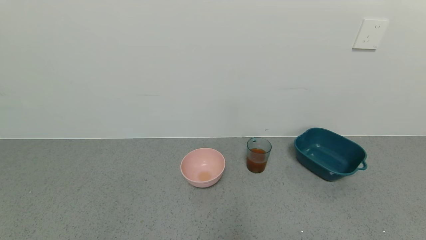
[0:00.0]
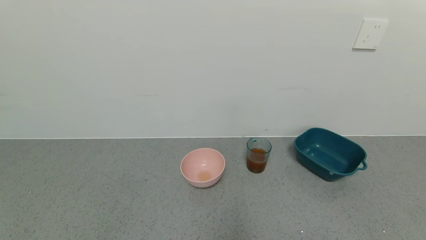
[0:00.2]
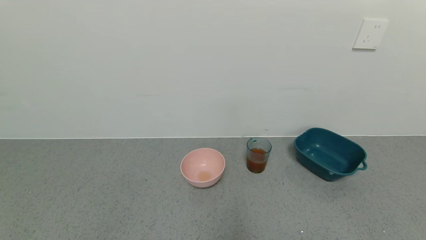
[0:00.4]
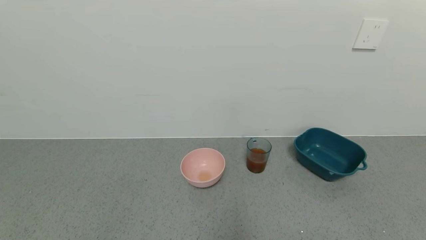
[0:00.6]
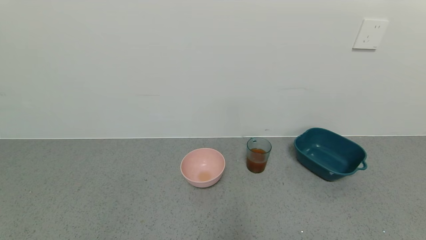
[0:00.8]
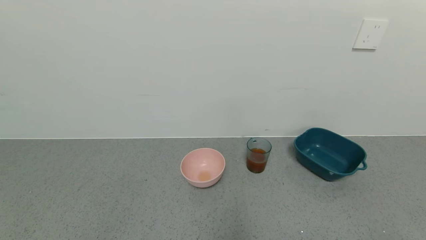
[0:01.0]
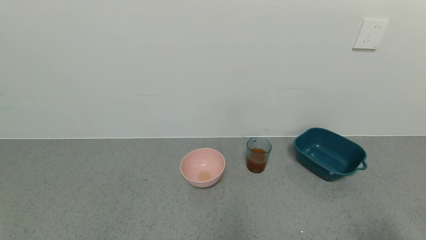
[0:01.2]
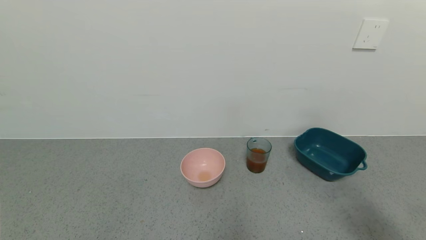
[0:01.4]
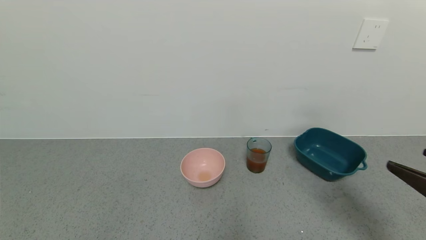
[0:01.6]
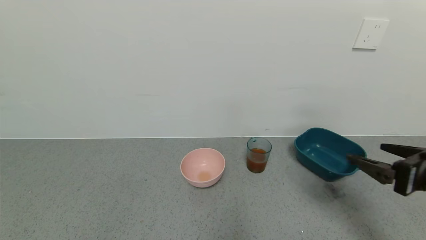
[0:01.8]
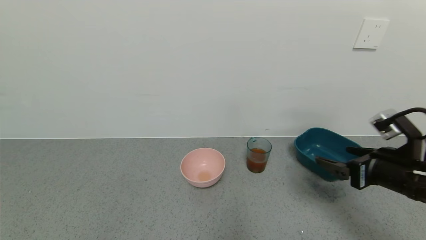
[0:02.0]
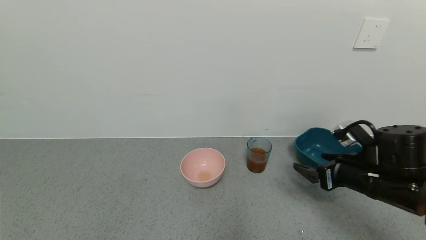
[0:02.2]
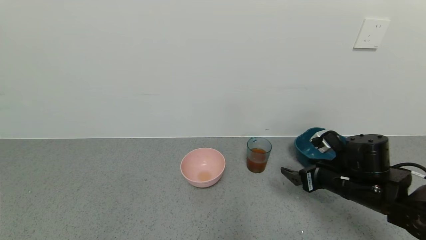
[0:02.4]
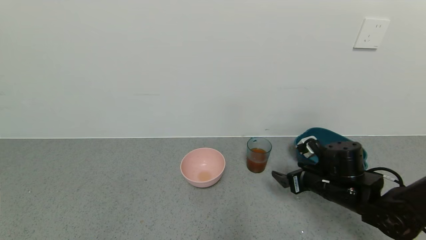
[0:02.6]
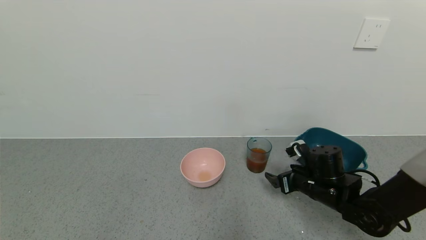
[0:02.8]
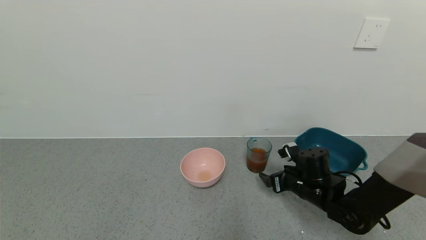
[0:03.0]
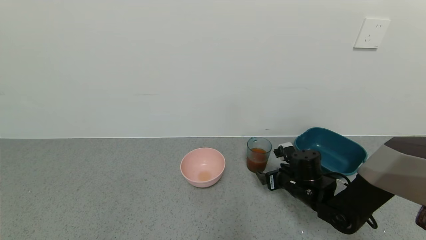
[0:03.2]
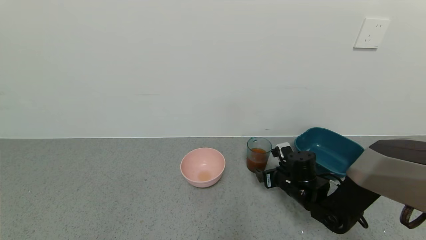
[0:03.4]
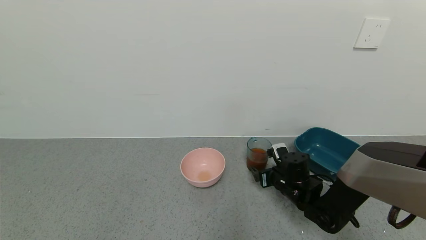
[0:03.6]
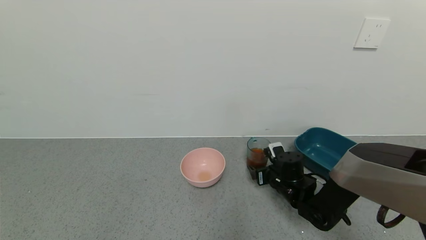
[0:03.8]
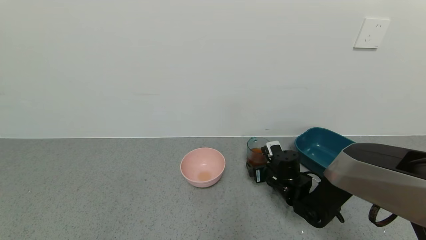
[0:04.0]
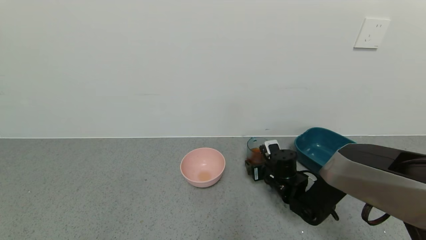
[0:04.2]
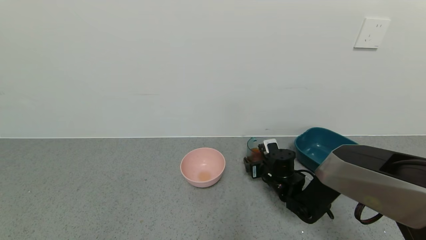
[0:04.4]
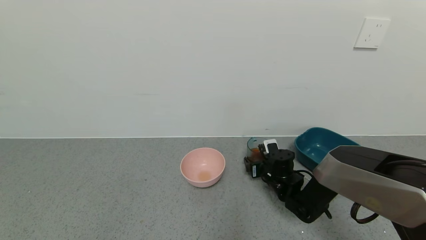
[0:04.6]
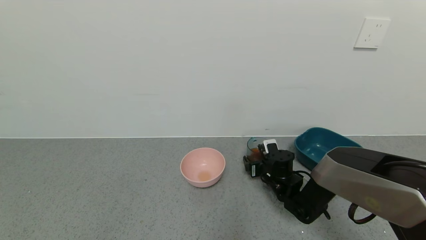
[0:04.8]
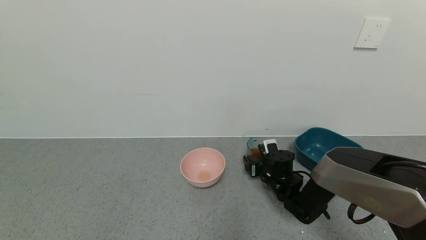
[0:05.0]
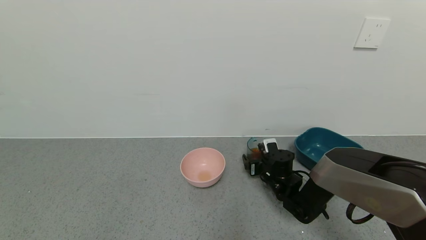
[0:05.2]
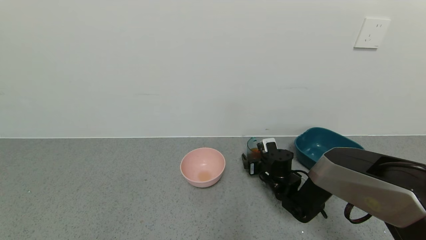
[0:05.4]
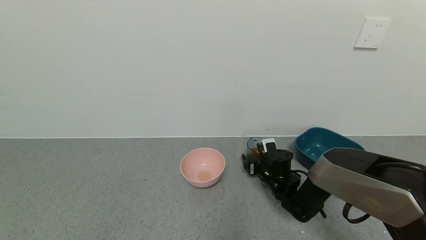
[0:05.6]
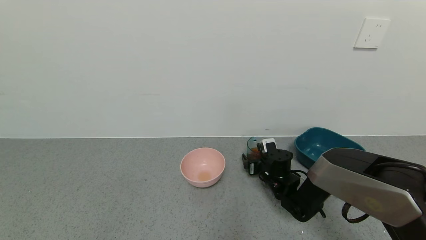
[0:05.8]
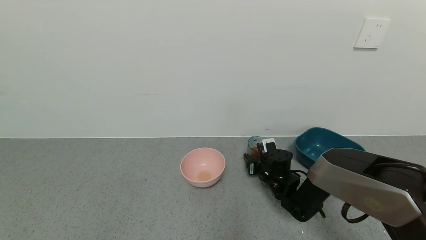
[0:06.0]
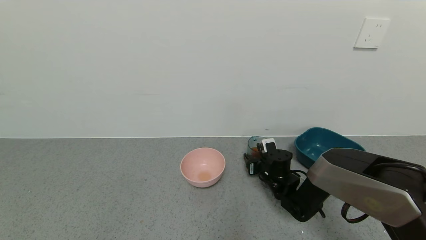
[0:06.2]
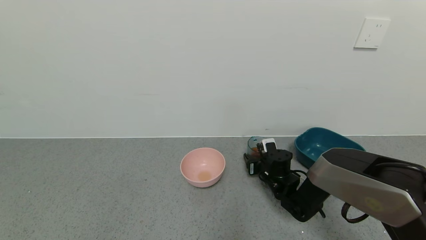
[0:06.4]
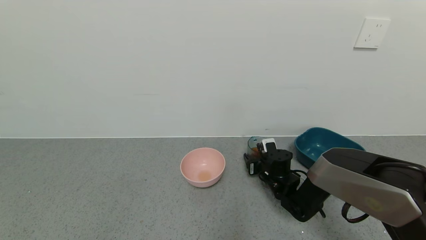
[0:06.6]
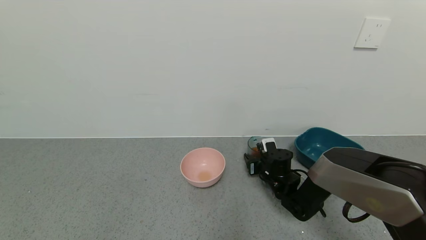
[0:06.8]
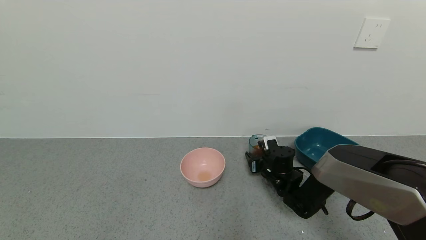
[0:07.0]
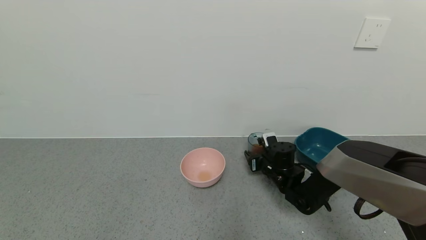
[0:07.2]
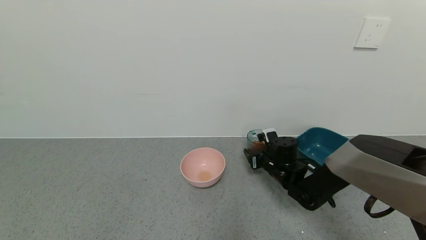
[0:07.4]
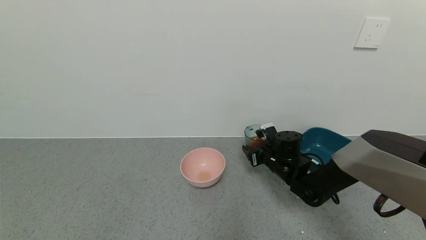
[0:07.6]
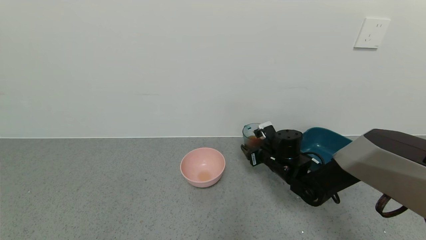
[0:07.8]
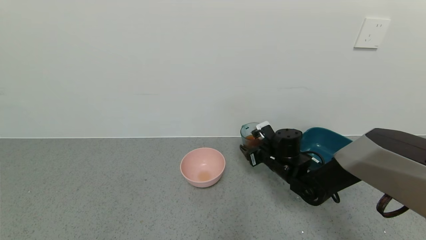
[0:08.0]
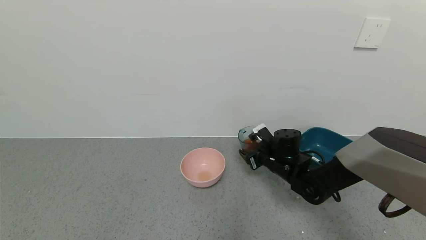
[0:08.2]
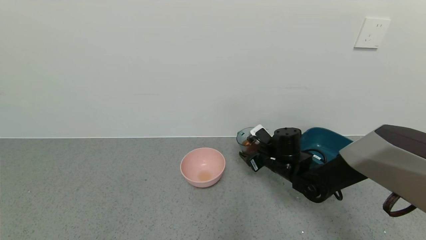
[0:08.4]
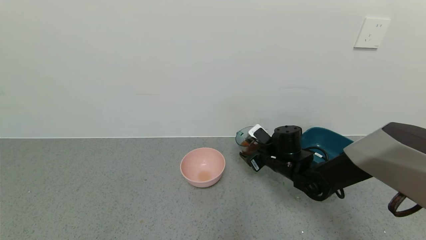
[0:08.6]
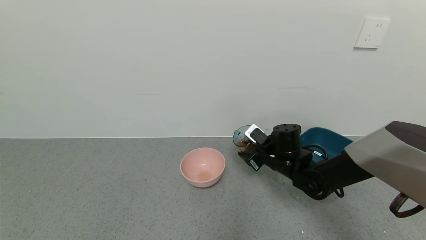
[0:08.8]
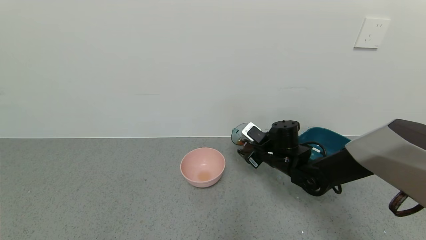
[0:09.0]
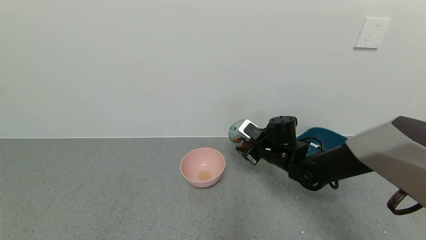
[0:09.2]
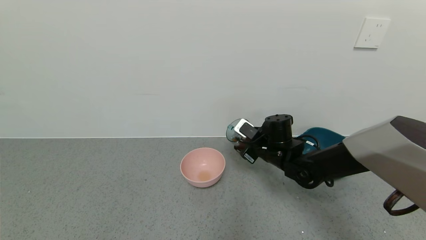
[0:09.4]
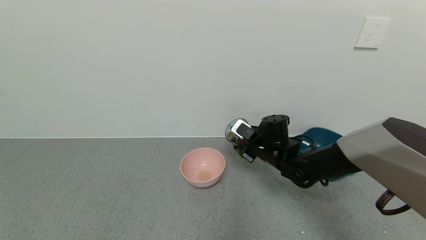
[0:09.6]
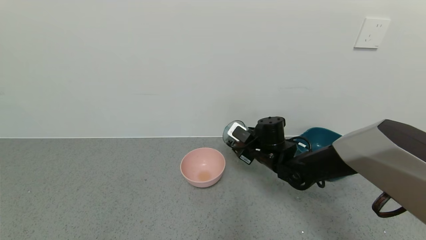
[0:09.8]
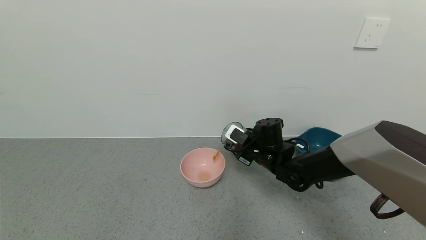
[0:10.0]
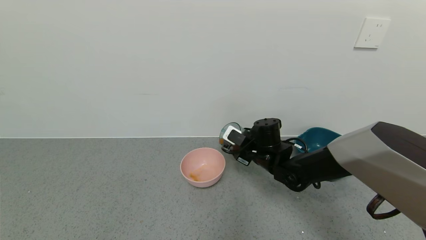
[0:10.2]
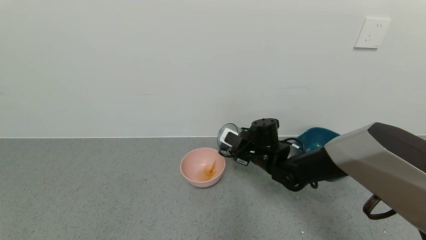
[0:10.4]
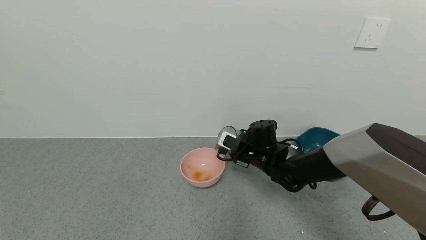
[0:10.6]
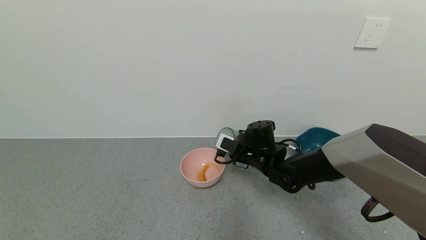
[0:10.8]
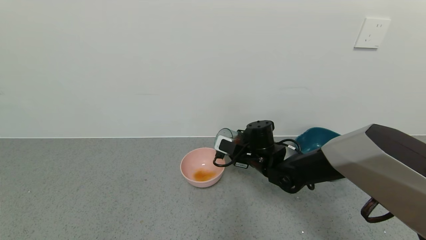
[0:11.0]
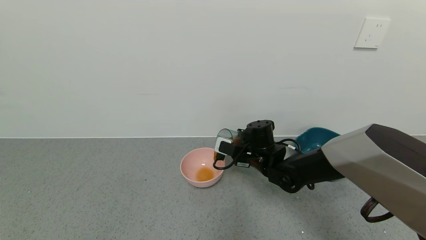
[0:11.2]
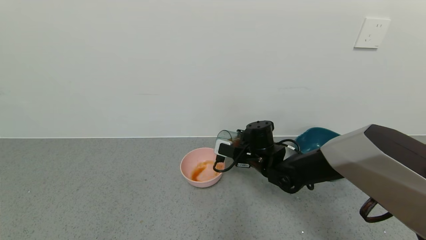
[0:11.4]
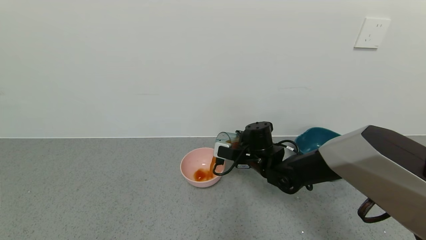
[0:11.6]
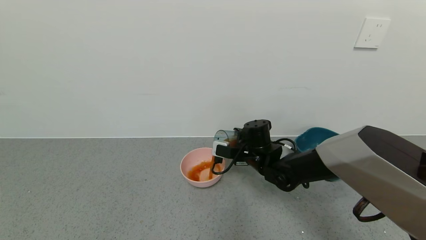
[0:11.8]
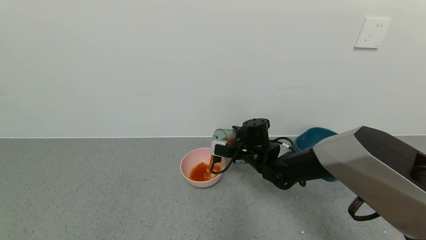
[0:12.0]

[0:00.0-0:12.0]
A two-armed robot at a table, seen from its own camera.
Task of the whole recording: use a gripper to pick up the cup and pour the liquid into a bowl or tray.
Step, 0:00.0 to 0:06.6: Grasp the glass of black tea with the right gripper.
0:00.0 to 0:01.6: The right gripper shifts some 20 cm upward and forward.
0:01.6 to 0:03.0: The right gripper travels forward, downward and to the left by about 30 cm.
0:03.0 to 0:04.4: The right gripper travels forward and to the left by roughly 10 cm.
0:04.4 to 0:06.0: The right gripper closes.
0:06.0 to 0:07.6: The right gripper travels upward by approximately 5 cm.
0:09.0 to 0:10.4: There are only small adjustments of the grippers.

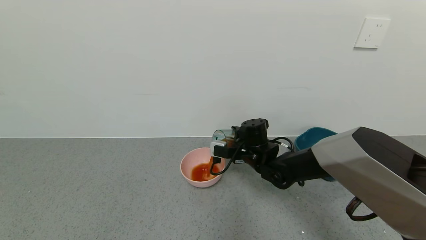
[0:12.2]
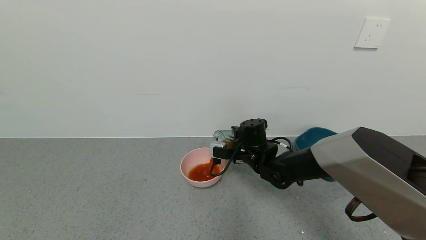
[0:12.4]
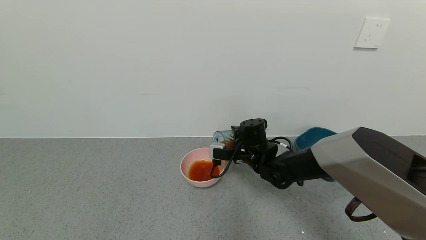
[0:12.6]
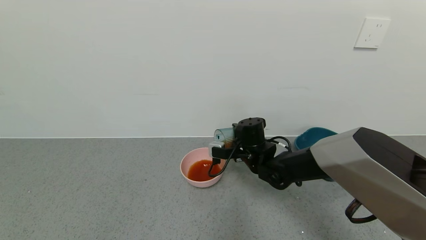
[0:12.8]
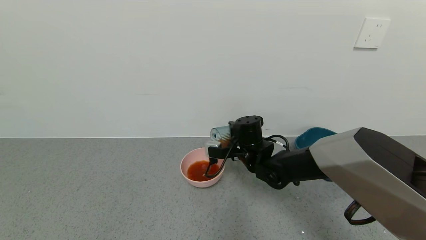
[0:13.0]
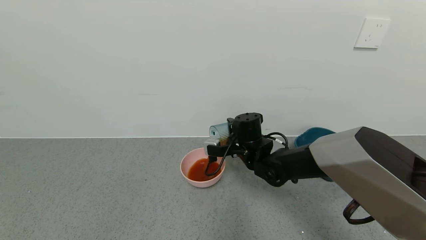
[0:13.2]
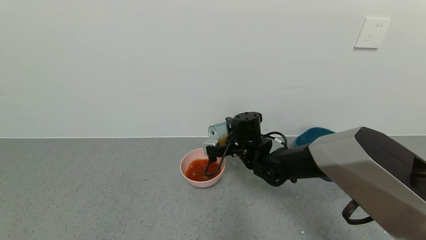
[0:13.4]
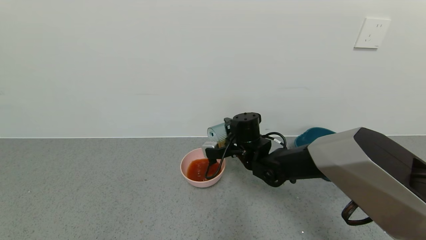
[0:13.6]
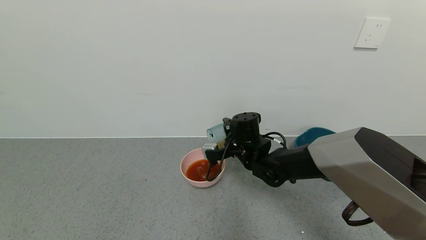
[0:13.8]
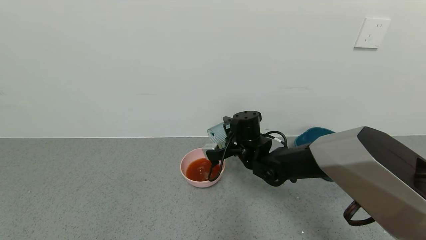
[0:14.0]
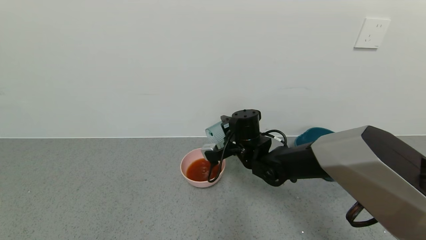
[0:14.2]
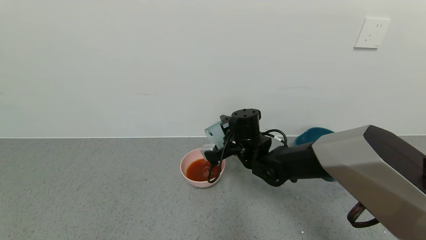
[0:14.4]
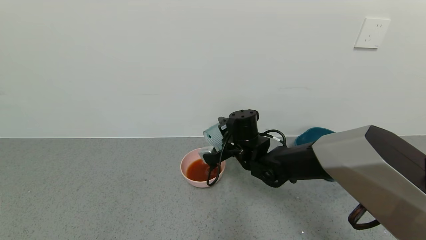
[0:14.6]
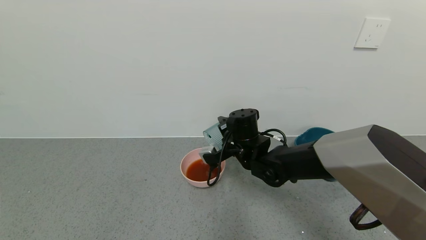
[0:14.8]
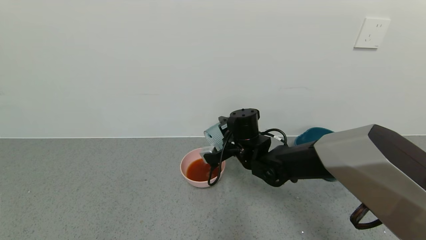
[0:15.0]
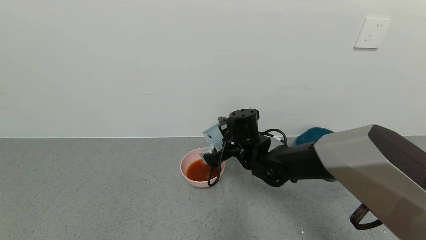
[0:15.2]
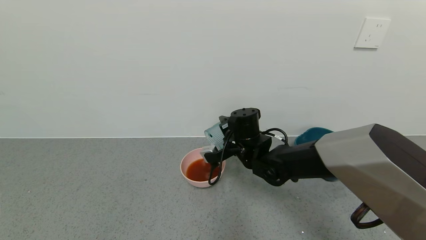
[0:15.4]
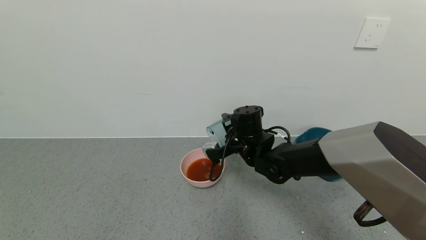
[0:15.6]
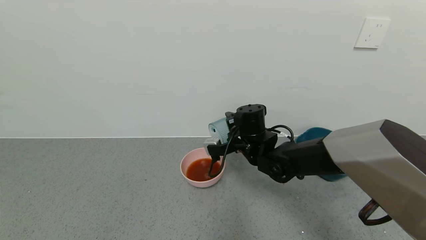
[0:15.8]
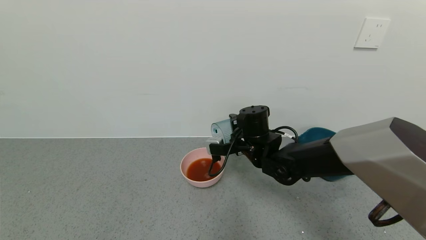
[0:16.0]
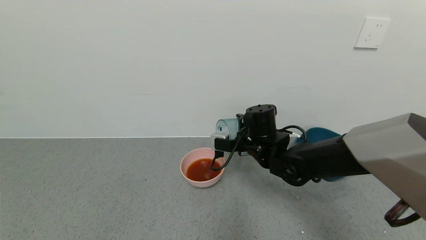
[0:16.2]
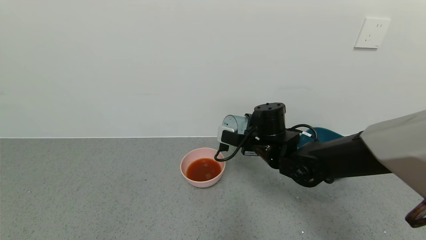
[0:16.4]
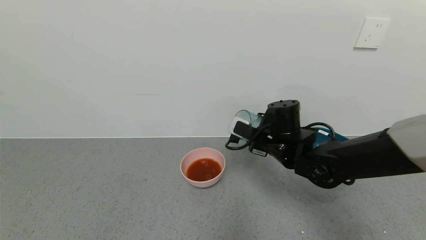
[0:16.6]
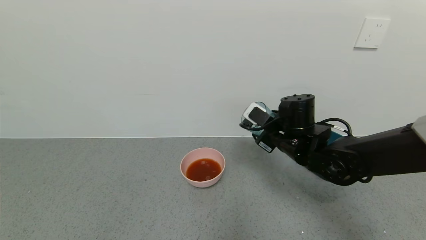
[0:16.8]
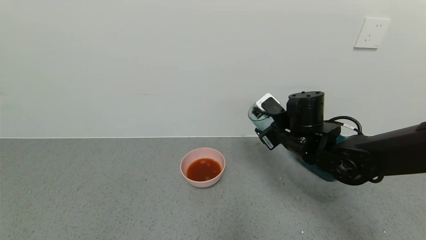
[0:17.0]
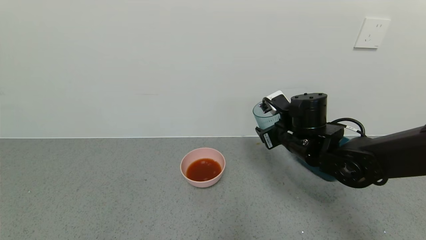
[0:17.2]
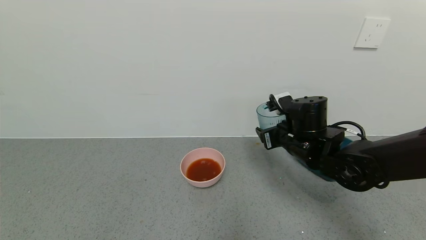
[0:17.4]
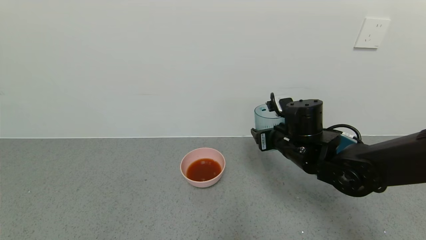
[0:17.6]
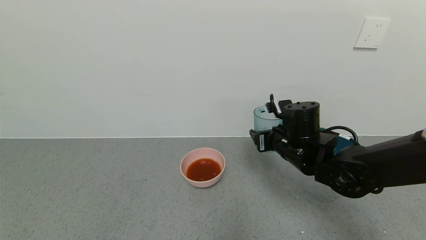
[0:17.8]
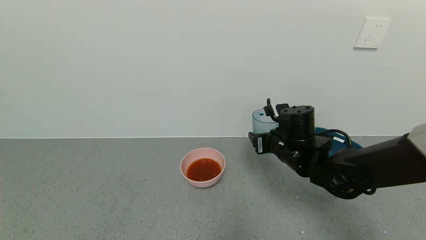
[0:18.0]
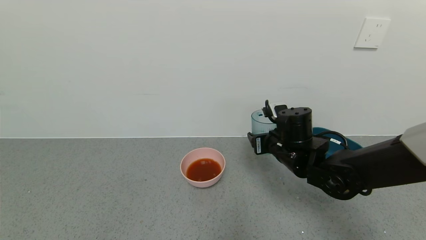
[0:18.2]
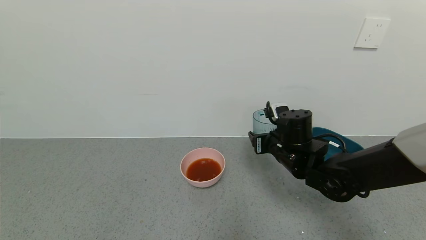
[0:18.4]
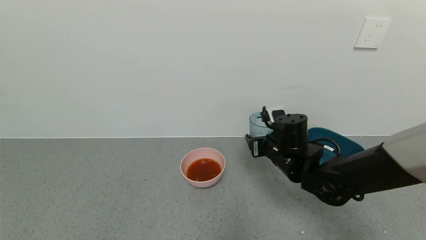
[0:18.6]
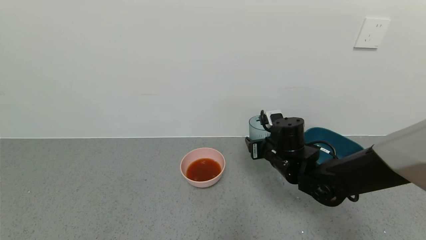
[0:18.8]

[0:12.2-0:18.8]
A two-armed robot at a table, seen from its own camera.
Task of the whole recording: use a gripper to pick up the cup and pour the liquid into a bowl or tray.
Step, 0:12.2 to 0:16.6: Pour the black tea into the pink bowl with the right gripper.
0:13.8 to 0:15.4: There are only small adjustments of the grippers.
0:15.4 to 0:17.2: The right gripper heads to the right, covering some 10 cm.
0:17.2 to 0:18.8: The right gripper travels downward by some 5 cm.
